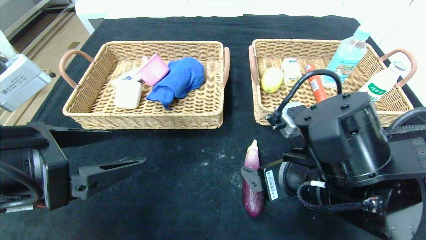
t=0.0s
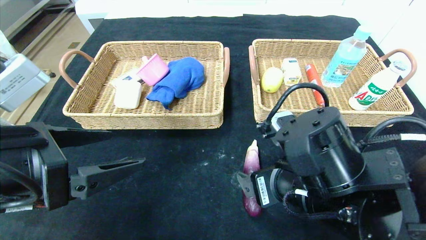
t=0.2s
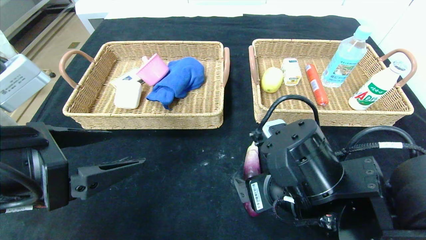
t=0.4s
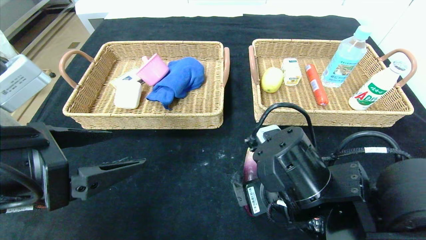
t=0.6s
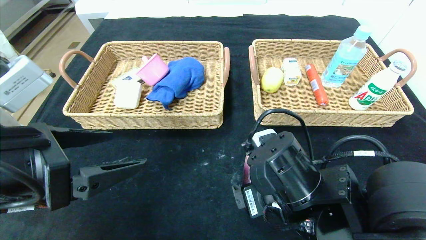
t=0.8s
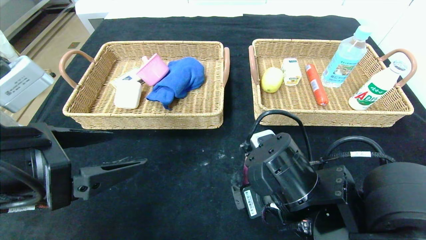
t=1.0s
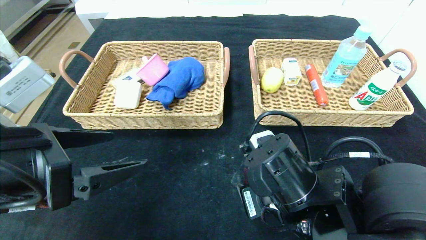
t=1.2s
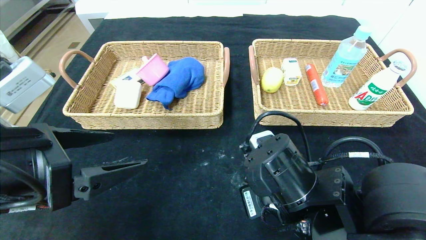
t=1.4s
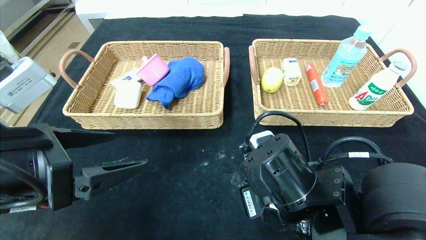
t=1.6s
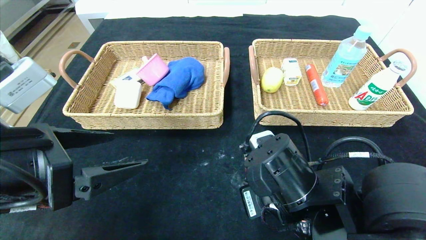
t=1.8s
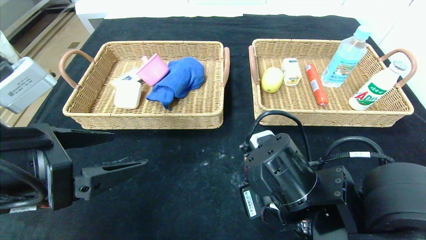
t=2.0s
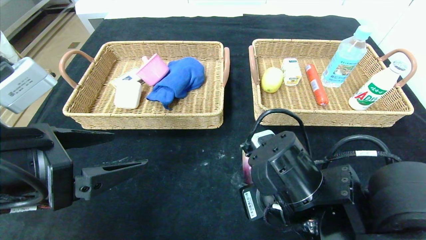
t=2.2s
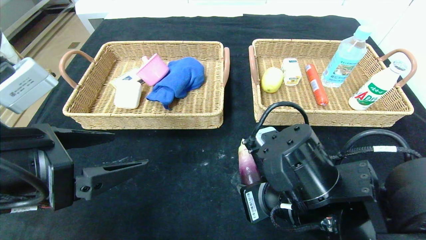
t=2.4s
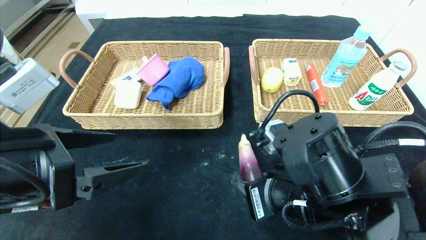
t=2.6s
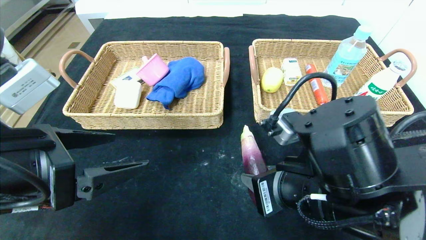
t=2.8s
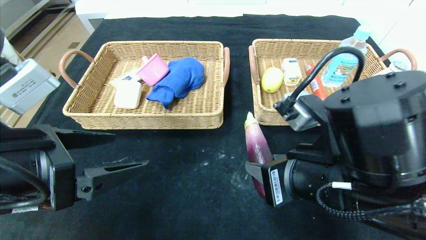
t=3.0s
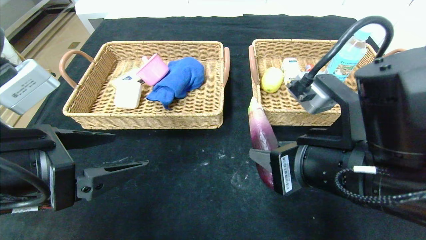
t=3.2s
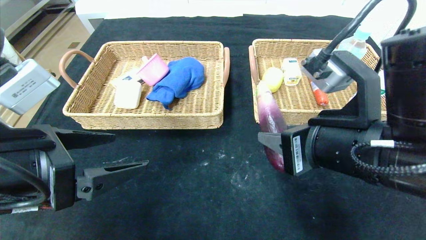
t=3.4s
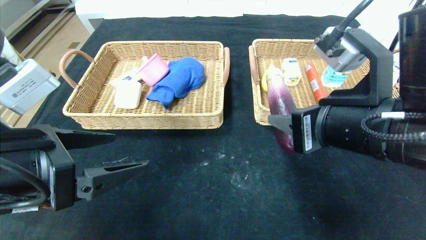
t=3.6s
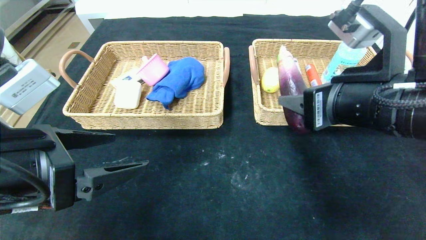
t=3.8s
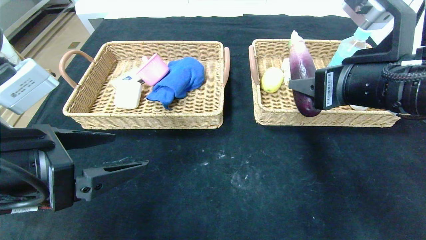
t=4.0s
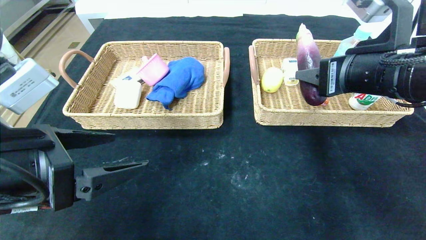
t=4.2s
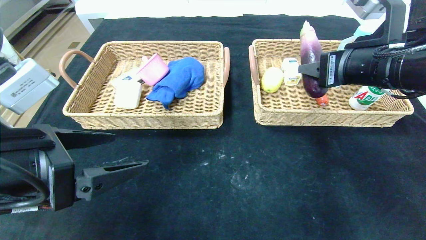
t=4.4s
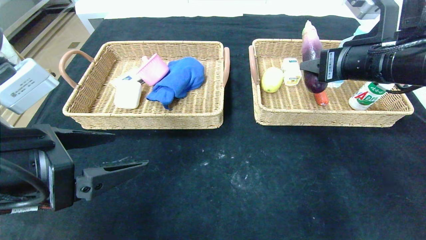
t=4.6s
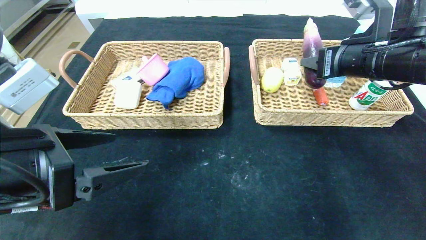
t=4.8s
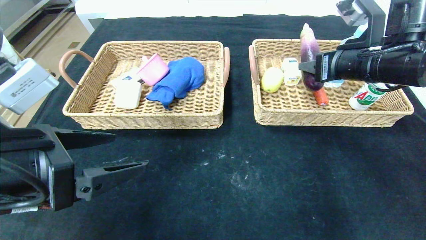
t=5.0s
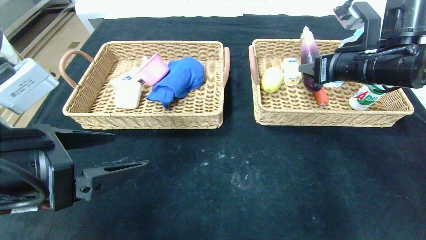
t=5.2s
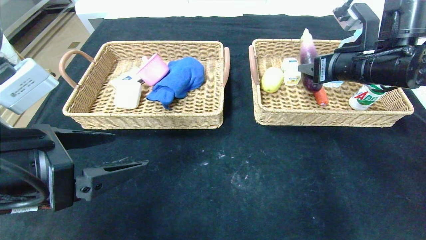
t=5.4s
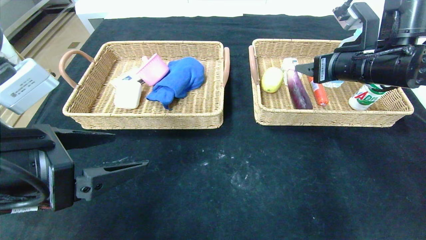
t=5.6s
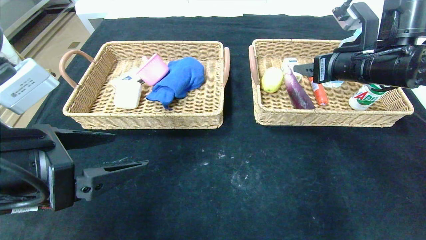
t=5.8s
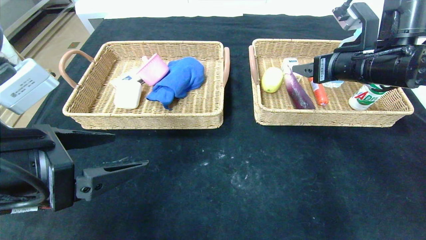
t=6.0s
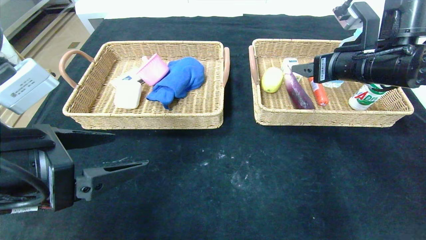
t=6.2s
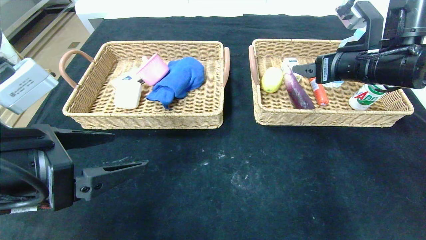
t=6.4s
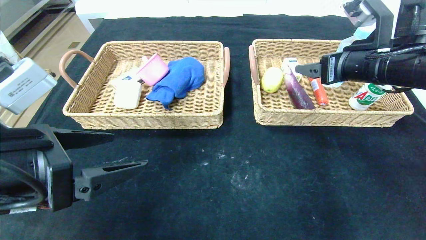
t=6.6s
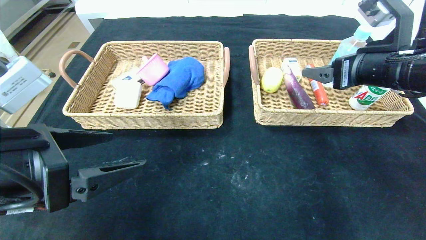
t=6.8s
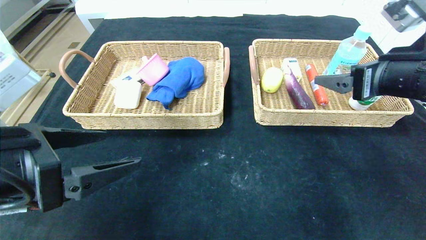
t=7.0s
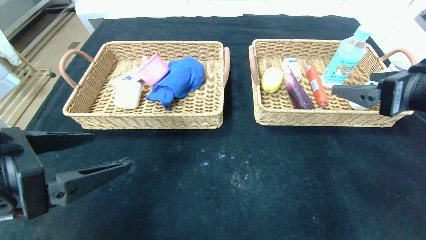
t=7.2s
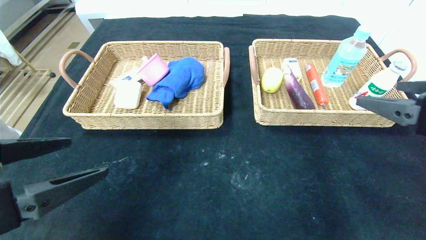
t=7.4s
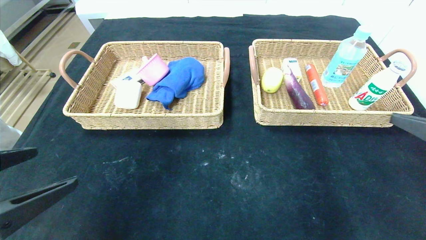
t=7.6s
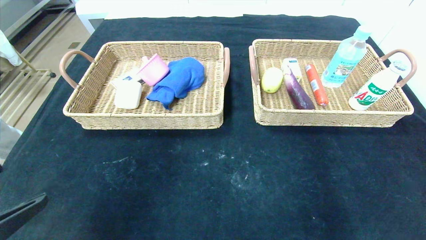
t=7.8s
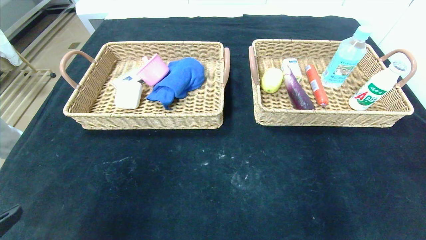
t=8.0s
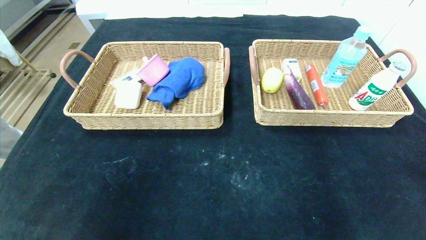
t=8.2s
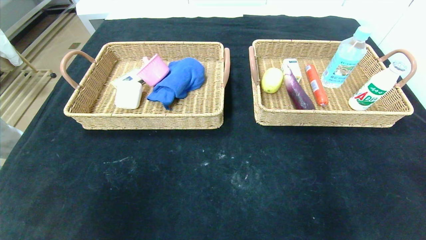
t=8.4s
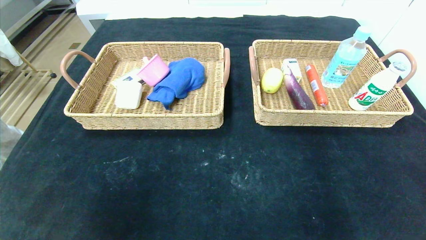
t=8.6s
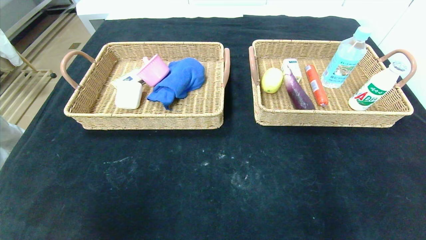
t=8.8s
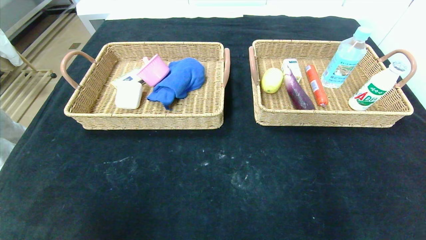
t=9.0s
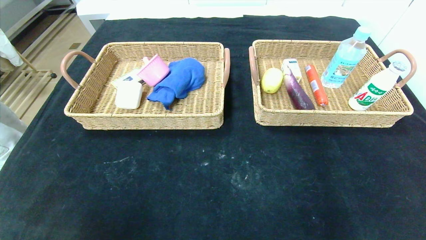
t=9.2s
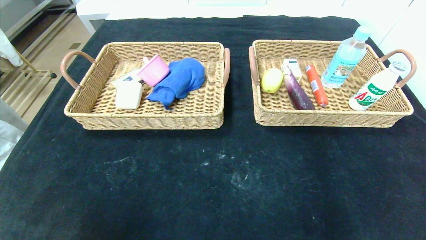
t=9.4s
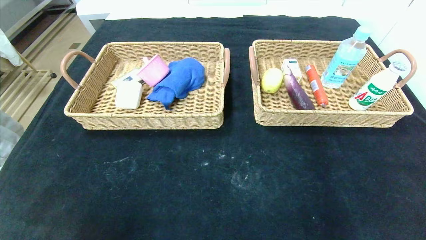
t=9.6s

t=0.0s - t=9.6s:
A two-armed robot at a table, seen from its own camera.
Step, t=0.0s - t=6.4s: Grasp the eggplant and put it in the right basket.
t=0.0s - t=1.6s: The right gripper moves roughly 5 cm, and closes.
t=1.6s - t=3.2s: The right gripper travels upward by roughly 10 cm.
t=3.2s - t=4.8s: The right gripper travels forward, to the right and upward by approximately 20 cm.
t=4.8s - t=6.4s: The right gripper opens.
t=6.4s - t=8.0s: The left gripper goes about 15 cm backward and to the left; the right gripper moves backward, approximately 30 cm.
t=8.0s - t=9.6s: Both grippers travel together downward and backward, approximately 15 cm.
